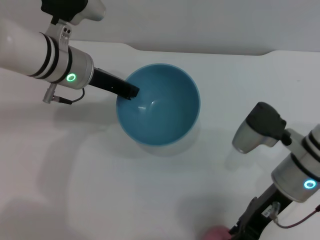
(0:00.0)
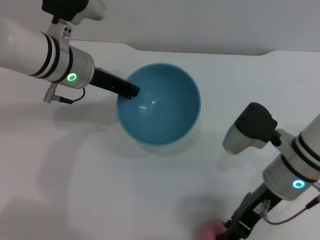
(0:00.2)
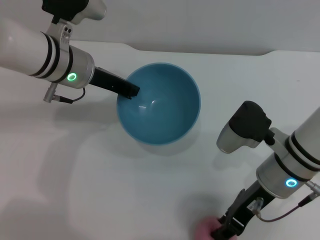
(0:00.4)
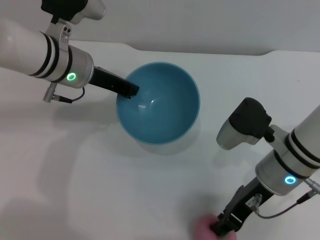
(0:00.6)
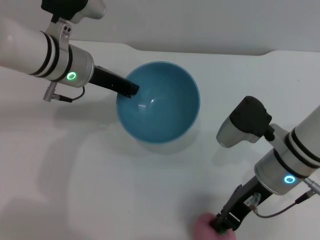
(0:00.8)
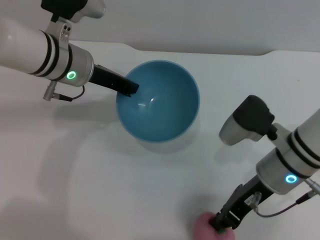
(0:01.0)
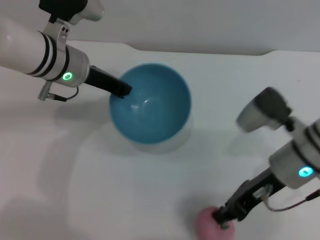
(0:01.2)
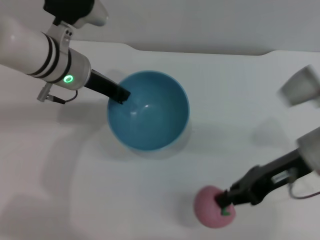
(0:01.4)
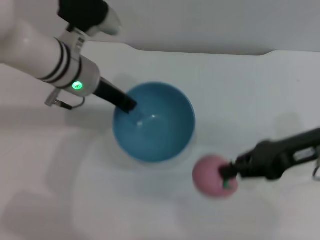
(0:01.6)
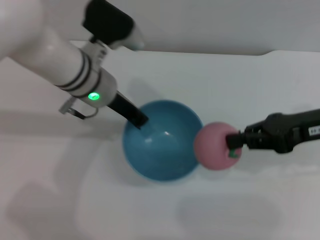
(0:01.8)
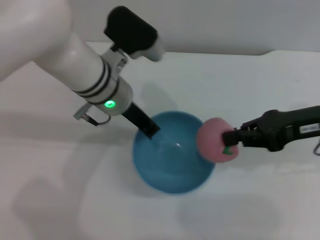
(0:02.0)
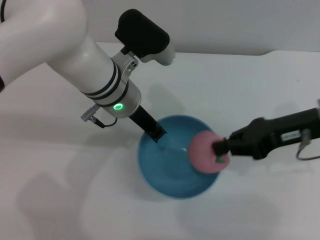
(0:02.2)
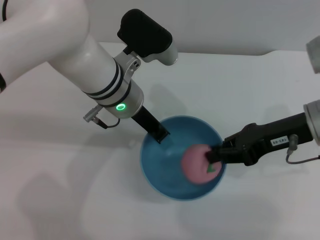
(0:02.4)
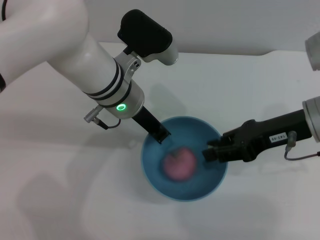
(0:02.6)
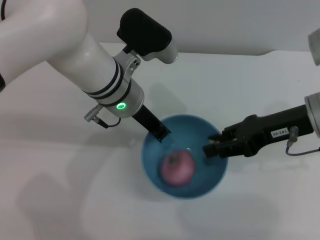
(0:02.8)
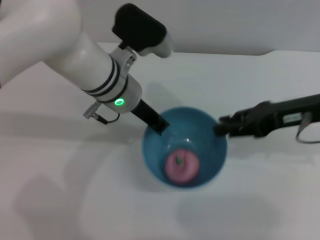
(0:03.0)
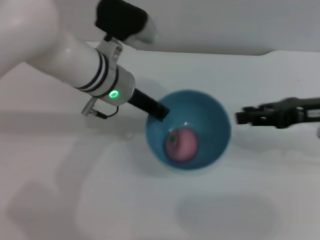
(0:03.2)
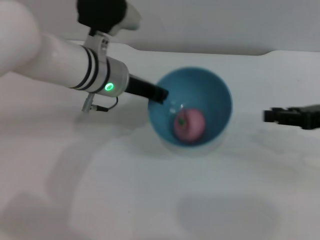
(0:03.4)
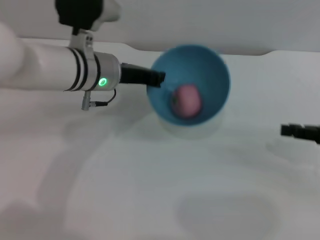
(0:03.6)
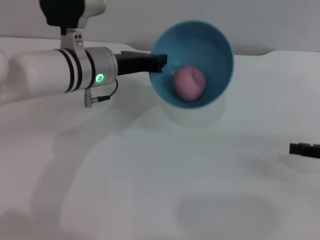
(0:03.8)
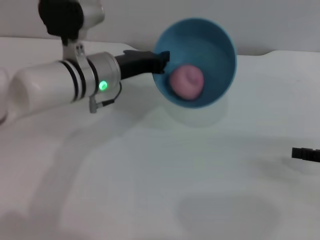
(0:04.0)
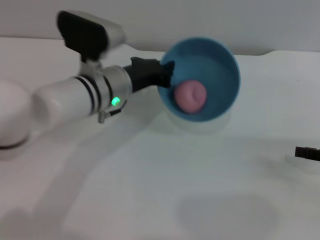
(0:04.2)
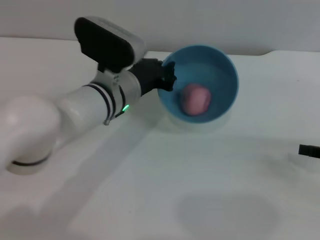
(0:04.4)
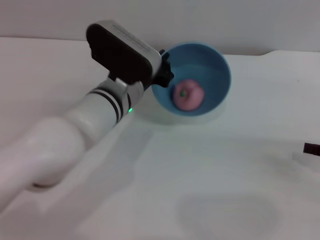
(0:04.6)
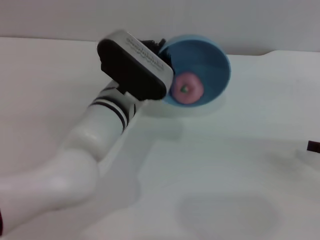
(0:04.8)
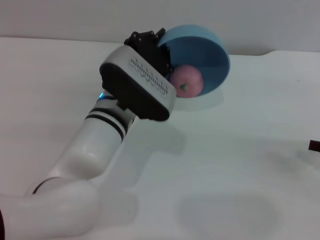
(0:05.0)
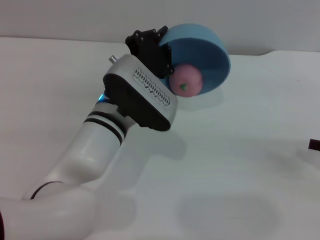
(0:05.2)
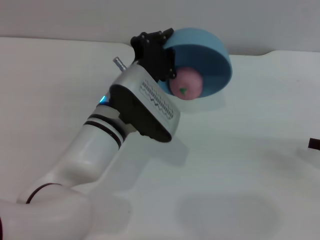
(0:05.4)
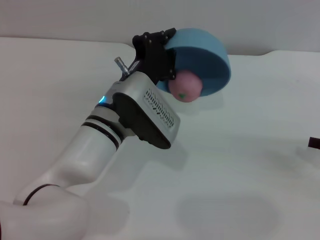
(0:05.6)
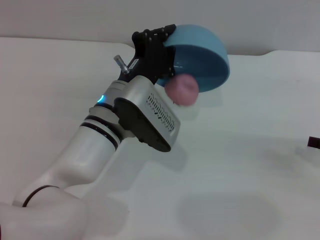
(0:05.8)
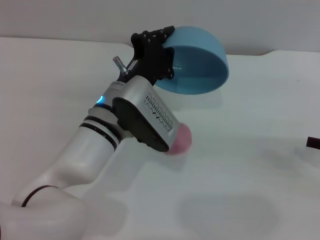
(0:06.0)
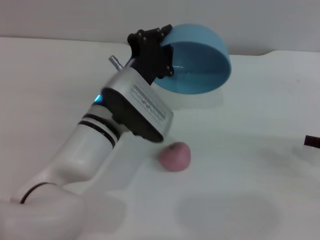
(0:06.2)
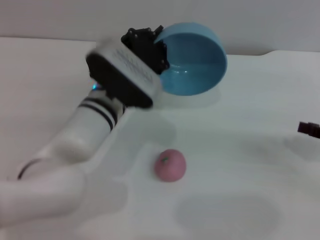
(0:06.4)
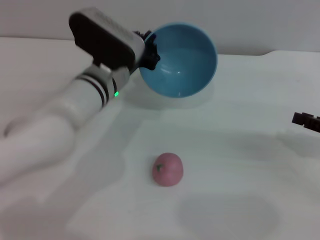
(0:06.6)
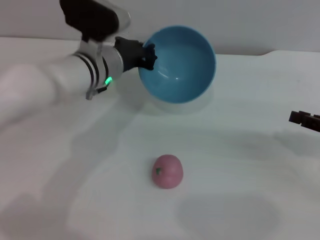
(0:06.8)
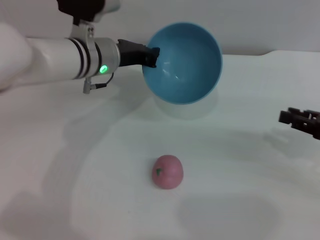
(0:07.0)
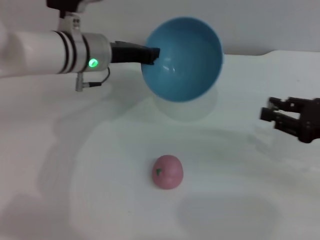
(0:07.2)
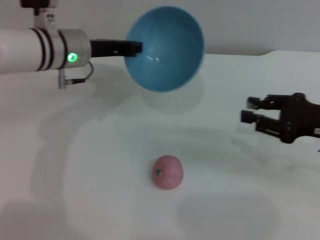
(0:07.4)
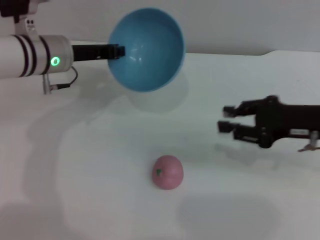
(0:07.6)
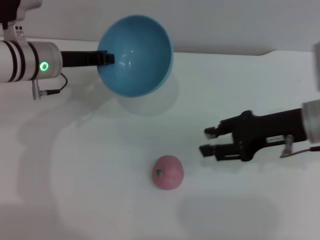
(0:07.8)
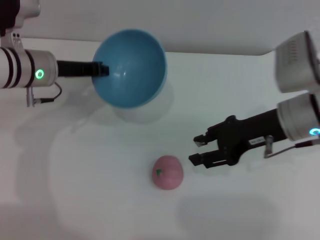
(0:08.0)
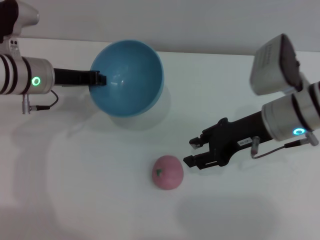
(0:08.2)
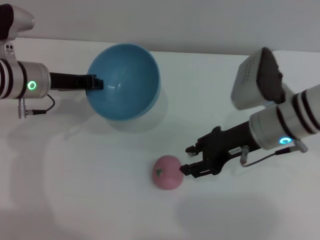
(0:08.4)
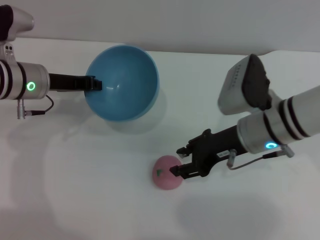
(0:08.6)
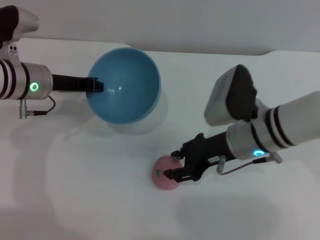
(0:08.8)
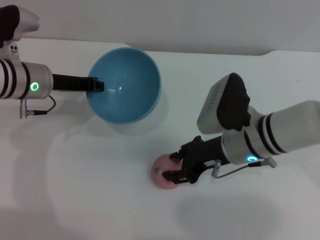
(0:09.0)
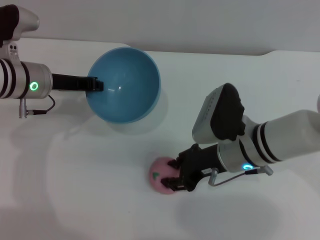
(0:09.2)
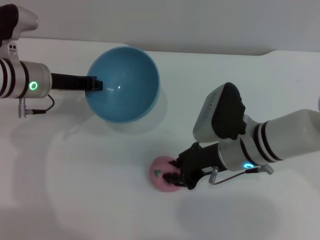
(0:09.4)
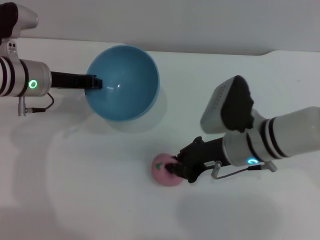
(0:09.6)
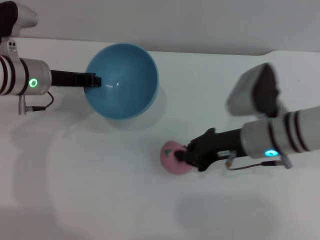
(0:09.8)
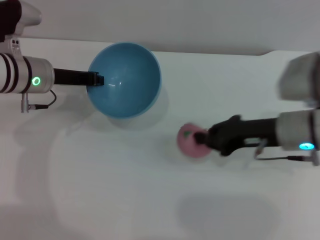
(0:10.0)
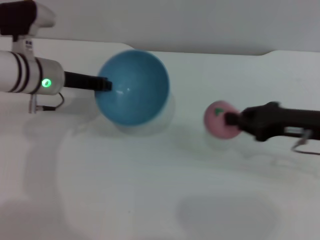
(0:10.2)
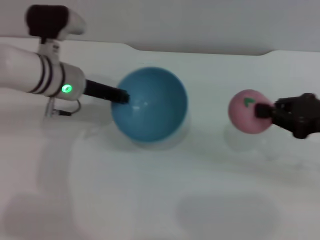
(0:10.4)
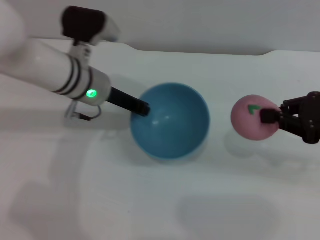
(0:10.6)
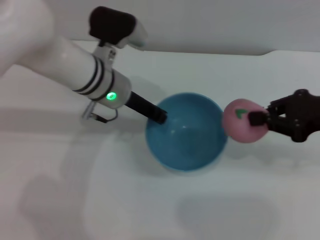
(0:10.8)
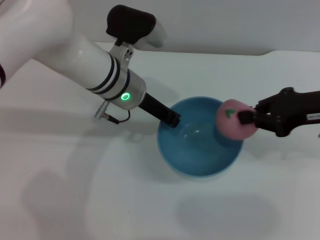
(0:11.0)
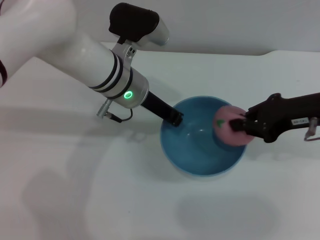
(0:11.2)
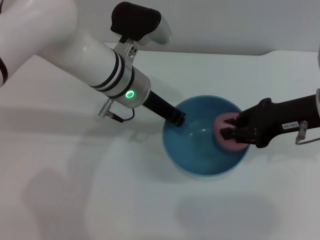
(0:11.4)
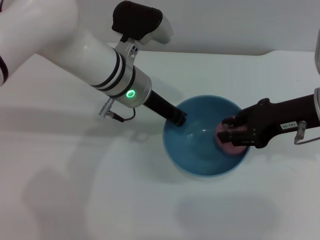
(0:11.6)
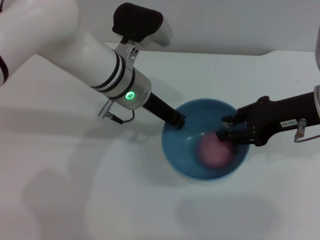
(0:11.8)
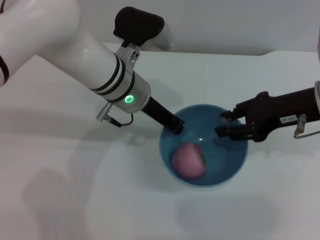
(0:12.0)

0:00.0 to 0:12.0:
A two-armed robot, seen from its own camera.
Task of the whole recording: put the peach into the blue bowl and pour it out repeatedly.
Step, 0:01.6 to 0:03.0: Place the peach into the bowl.
Step, 0:03.2 to 0:06.2: Pour the peach out of bowl.
Step, 0:06.4 to 0:10.2: Pick up the peach with the right gripper.
0:00.0 to 0:01.6: The right gripper heads to the right and upward, covering some 10 cm, and closes up.
0:01.6 to 0:03.0: The left gripper is displaced to the right by about 5 cm. The right gripper opens up.
0:03.0 to 0:04.4: The right gripper travels to the right, downward and backward by some 15 cm. Meanwhile the left gripper ends up approximately 5 cm from where it was.
0:06.0 to 0:07.6: The left gripper moves to the left and forward, about 15 cm. Meanwhile the right gripper goes about 10 cm to the left.
0:07.6 to 0:09.0: The right gripper goes about 15 cm to the left and downward.
0:09.0 to 0:10.4: The left gripper ends up roughly 5 cm from where it was; the right gripper travels to the right by about 20 cm, and closes.
0:10.4 to 0:12.0: The left gripper is displaced to the right by roughly 10 cm; the right gripper heads to the left, covering some 5 cm, and opens up.

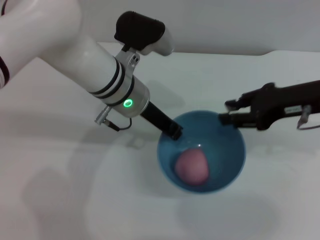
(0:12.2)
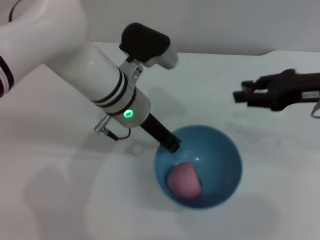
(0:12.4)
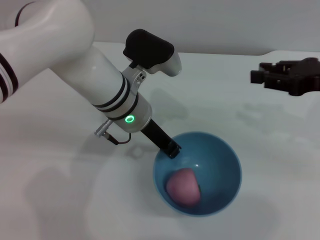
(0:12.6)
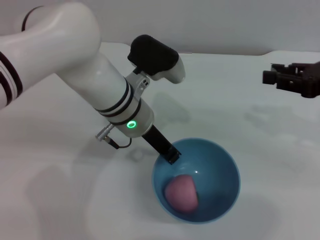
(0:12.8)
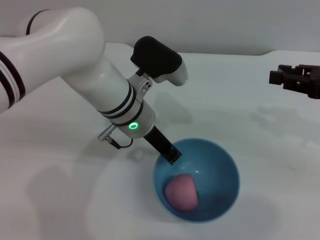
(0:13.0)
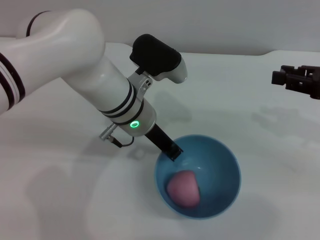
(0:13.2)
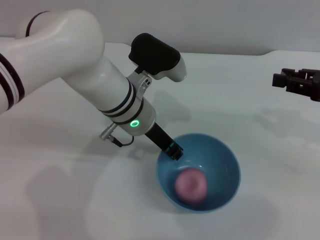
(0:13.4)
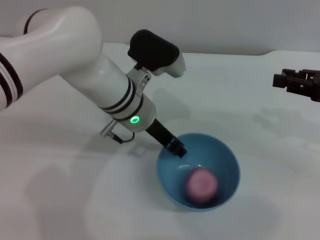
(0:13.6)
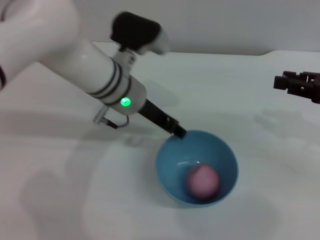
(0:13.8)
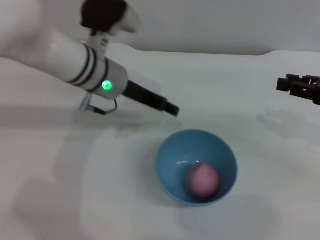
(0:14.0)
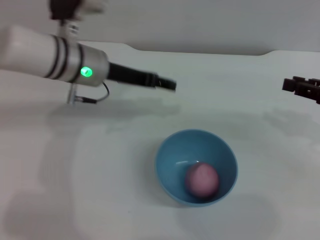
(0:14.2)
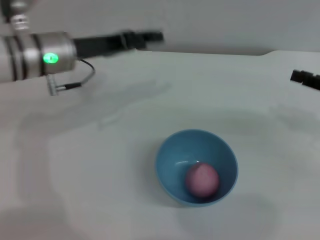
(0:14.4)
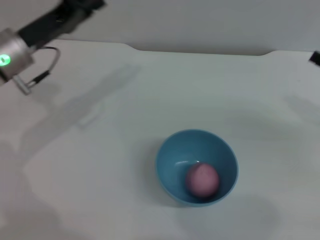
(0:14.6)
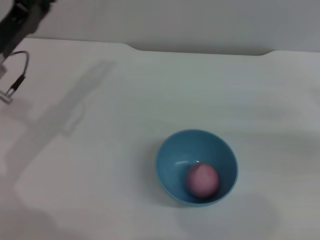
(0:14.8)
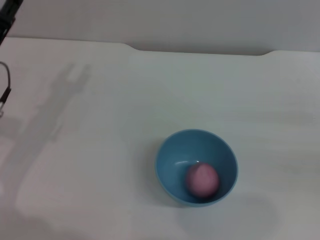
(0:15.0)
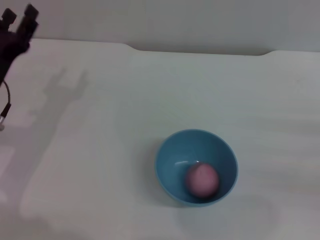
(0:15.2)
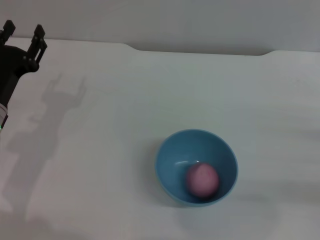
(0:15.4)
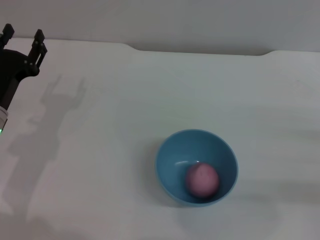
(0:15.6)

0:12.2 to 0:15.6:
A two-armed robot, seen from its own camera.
Task of the whole recording: put the peach into the blue bowl and pour it out repeatedly.
Step, 0:12.4 to 0:14.0: Place the bowl on the table.
0:12.2 to 0:13.8: The left gripper opens its fingers. Meanwhile the right gripper shifts approximately 10 cm to the right.
0:13.8 to 0:15.6: The right gripper shifts approximately 15 cm downward and backward; the left gripper goes approximately 20 cm to the left and backward, and opens.

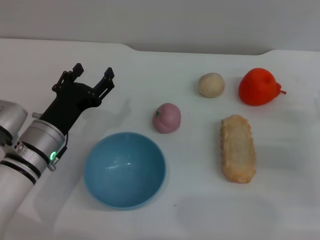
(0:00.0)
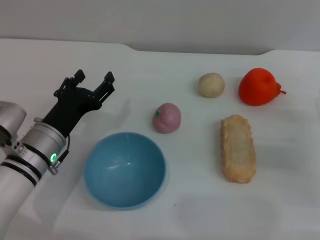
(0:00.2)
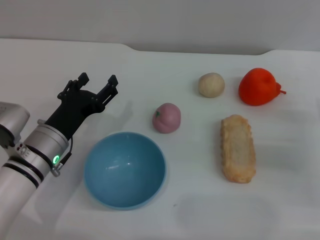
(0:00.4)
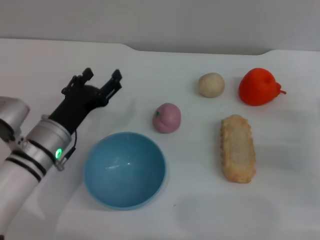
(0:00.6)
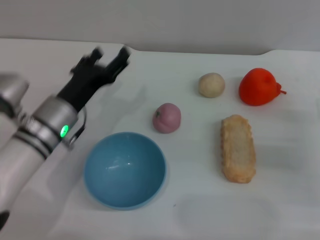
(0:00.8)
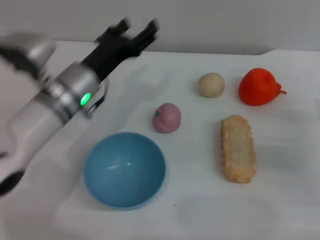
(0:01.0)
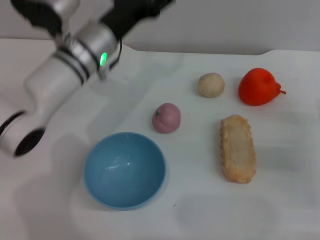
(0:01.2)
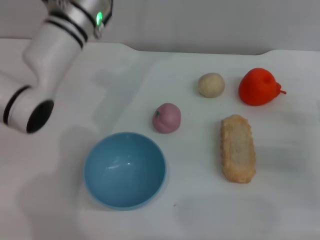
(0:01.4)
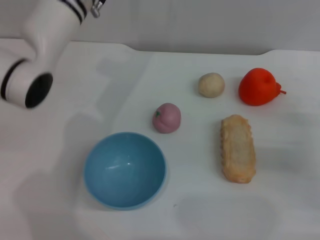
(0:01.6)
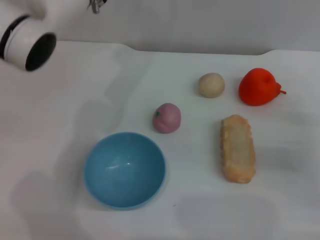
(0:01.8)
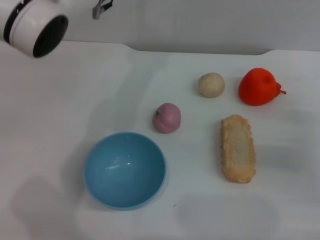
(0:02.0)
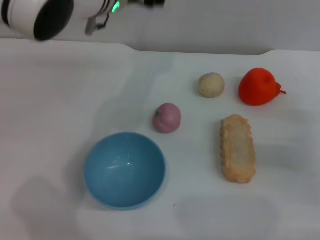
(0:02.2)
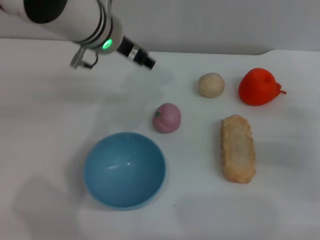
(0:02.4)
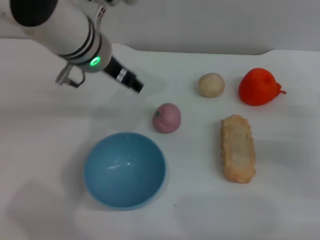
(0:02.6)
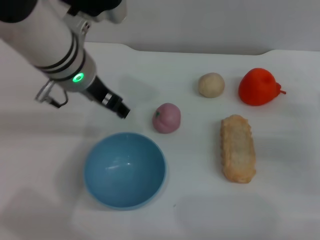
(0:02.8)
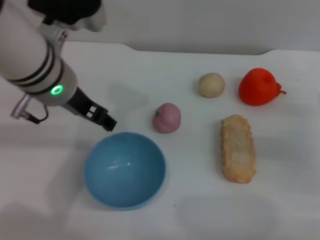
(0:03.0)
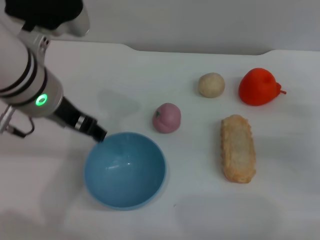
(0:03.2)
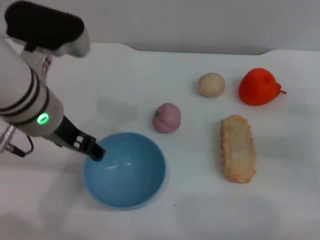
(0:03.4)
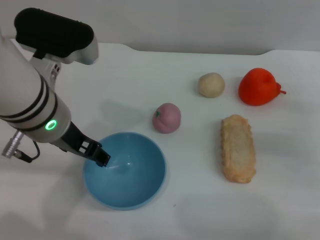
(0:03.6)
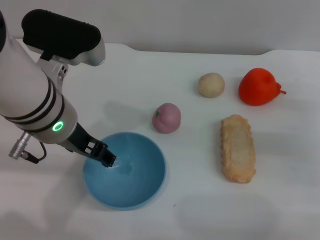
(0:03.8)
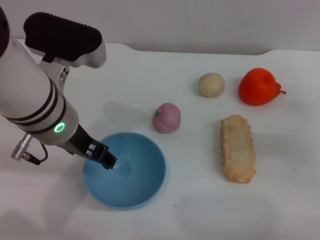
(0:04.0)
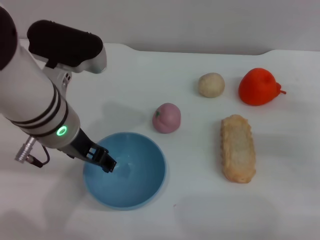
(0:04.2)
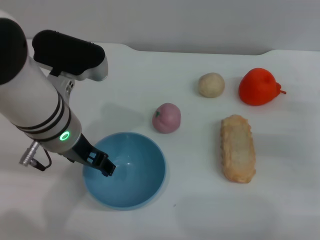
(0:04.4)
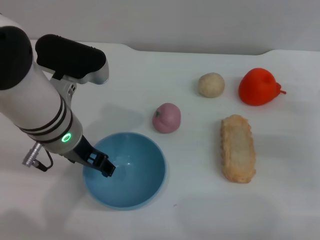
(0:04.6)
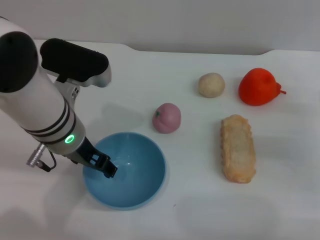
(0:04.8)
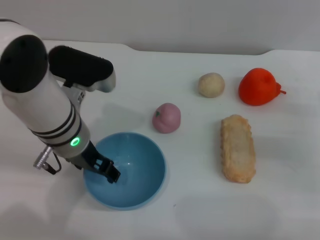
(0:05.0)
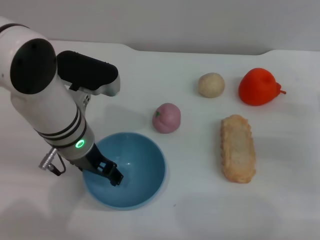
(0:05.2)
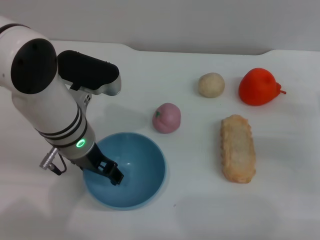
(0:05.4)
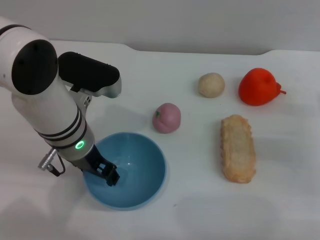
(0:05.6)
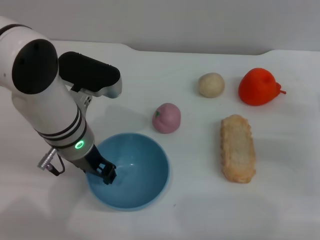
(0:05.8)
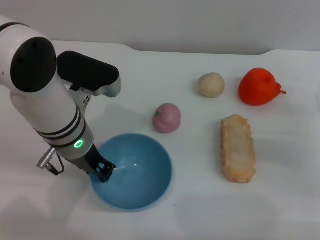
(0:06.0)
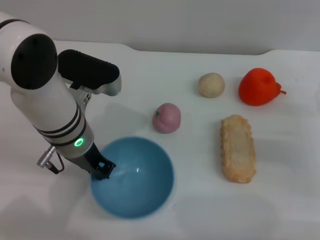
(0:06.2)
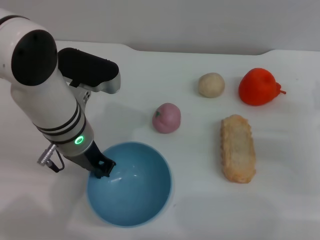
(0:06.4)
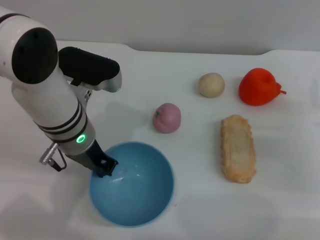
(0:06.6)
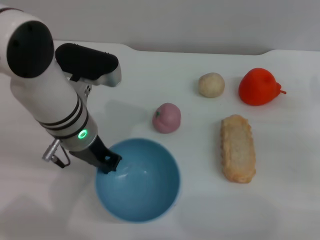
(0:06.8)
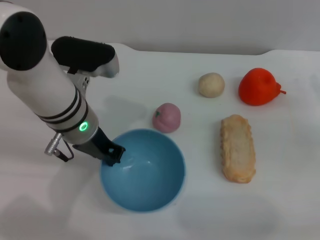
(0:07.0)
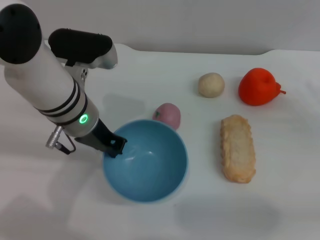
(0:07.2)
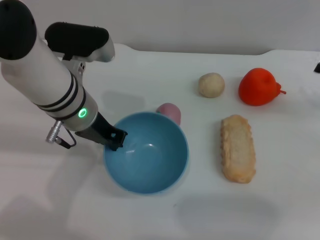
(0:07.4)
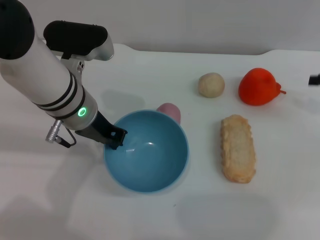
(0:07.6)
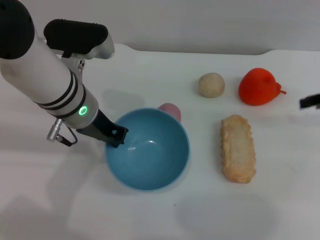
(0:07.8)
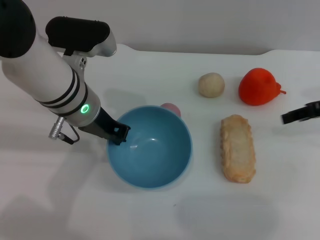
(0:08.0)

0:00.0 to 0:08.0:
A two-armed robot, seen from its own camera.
Task of the whole recording: put the bread into the blue bowl and pour it out repeatedly.
Step, 0:00.0 to 0:07.8: Pick up the bowl with the left gripper.
0:00.0 to 0:01.6: The left gripper shifts roughly 25 cm forward, upward and to the right.
0:01.6 to 0:03.2: The left gripper shifts approximately 15 cm backward.
0:03.2 to 0:04.8: The left gripper moves downward, roughly 5 cm.
0:04.8 to 0:06.4: The left gripper closes its fingers.
0:06.4 to 0:08.0: The right gripper heads upward and forward, covering some 10 cm.
